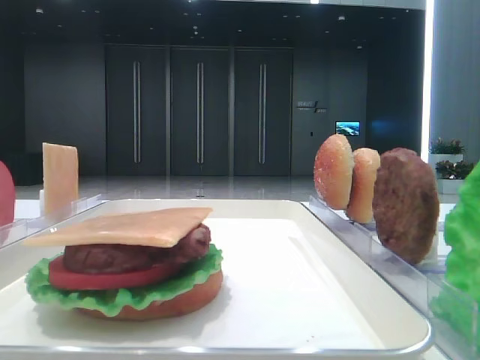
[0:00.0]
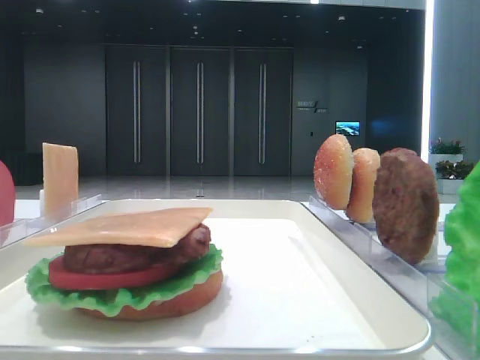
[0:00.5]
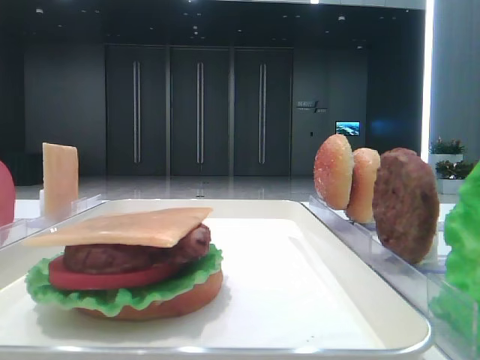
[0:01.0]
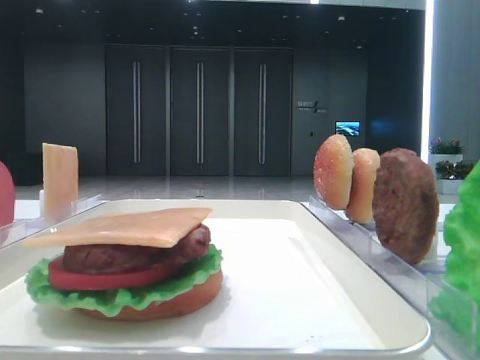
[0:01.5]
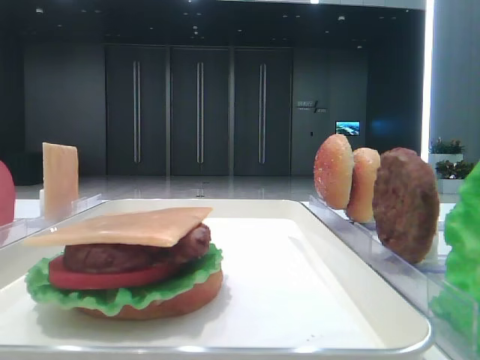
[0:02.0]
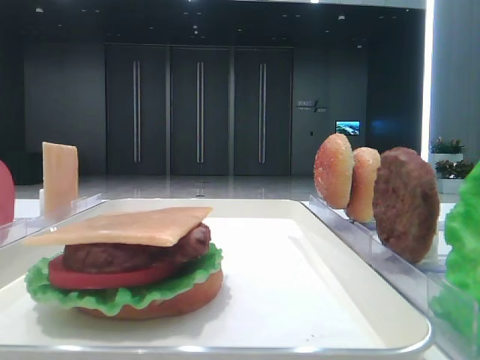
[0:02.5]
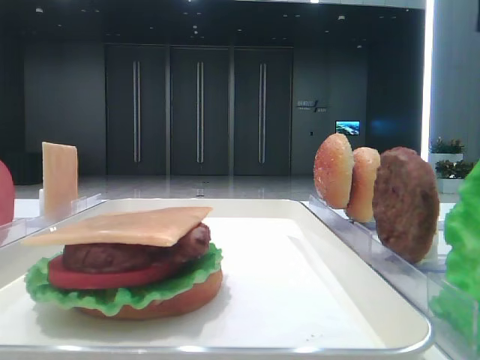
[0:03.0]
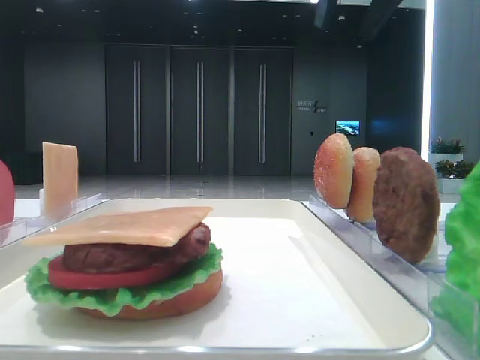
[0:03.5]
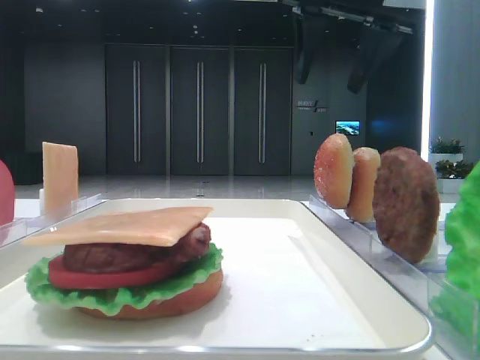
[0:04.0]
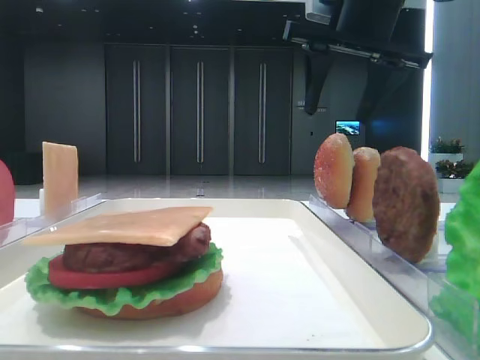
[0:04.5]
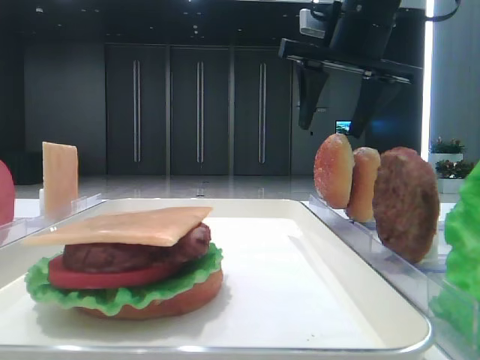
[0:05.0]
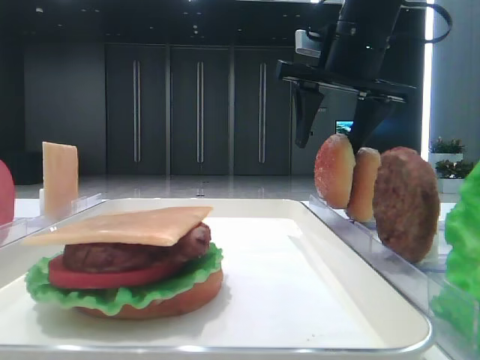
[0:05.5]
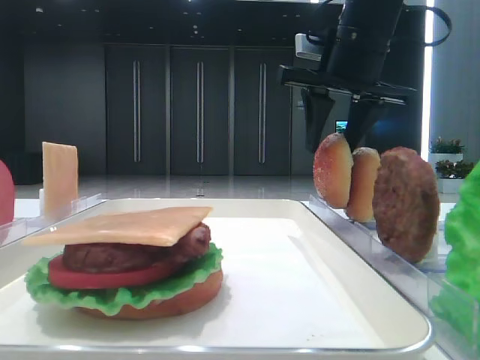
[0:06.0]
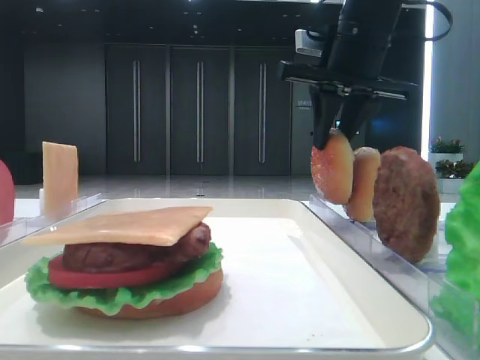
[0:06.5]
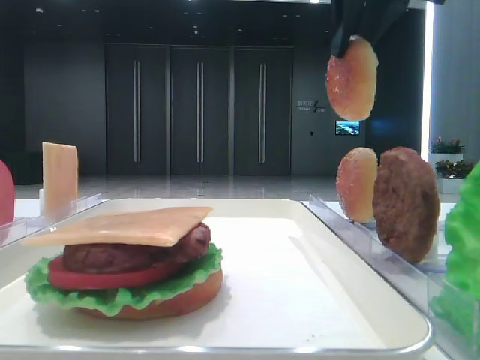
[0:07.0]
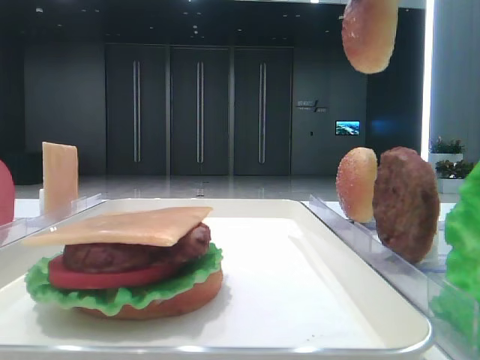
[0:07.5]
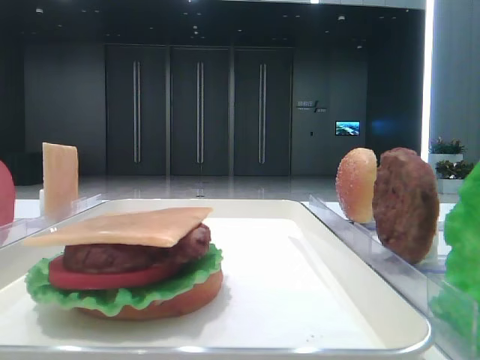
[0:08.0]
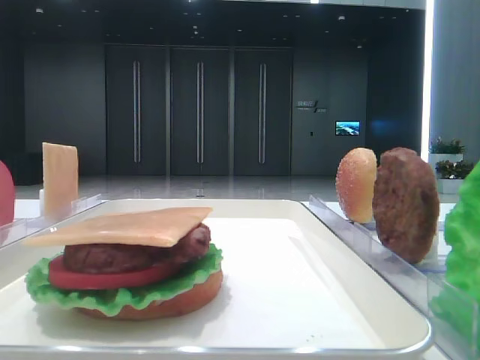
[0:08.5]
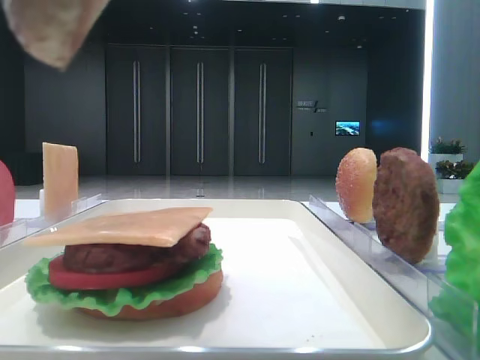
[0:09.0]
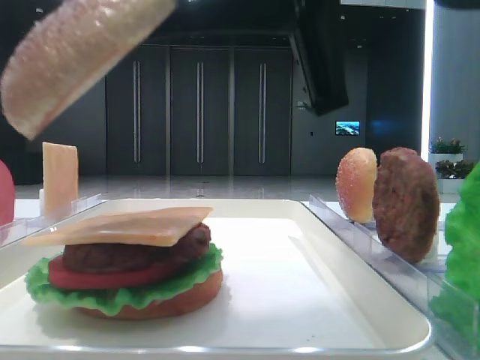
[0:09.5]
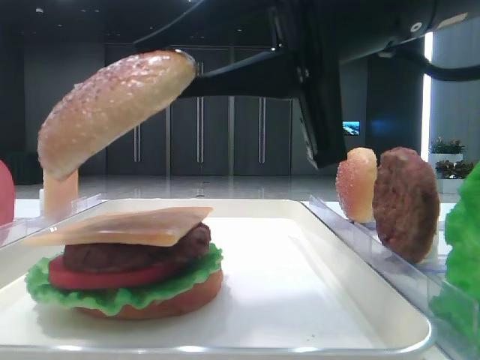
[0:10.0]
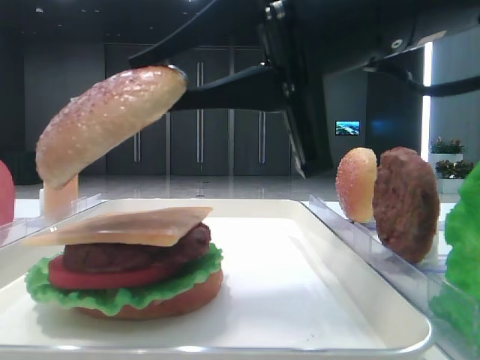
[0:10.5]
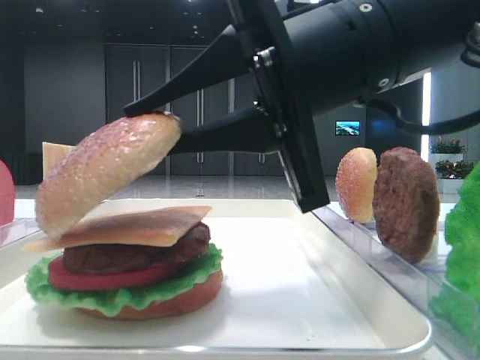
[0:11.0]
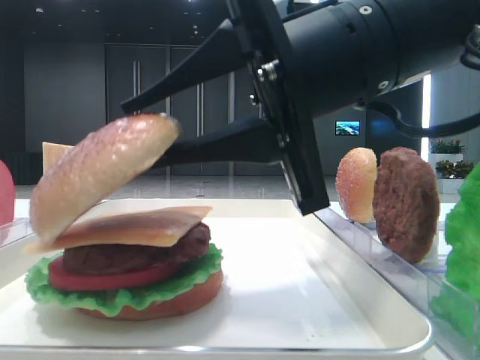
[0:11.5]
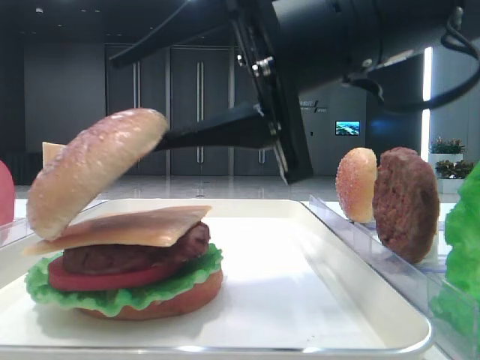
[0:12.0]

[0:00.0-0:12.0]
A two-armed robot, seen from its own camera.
Step, 0:00.0 to 0:06.0: Pick up the top bread slice with the right hand.
0:02.0 to 0:04.0: The right gripper is displaced forward and to the left by some 30 cm, and opens its fingers.
0:04.0 to 0:06.0: The right gripper heads downward, covering some 5 cm, and closes.
0:06.0 to 0:08.0: The right gripper travels backward and upward by about 30 cm, and closes.
0:08.0 to 0:10.0: The right gripper heads downward, covering approximately 20 cm.
0:10.0 to 0:12.0: The right gripper opens its fingers.

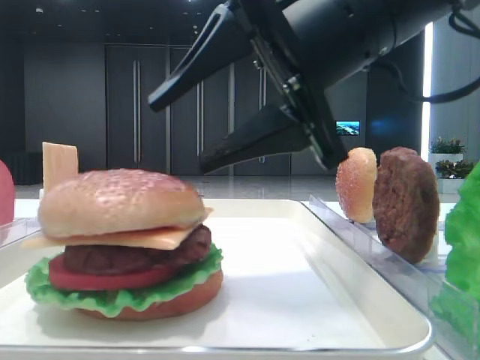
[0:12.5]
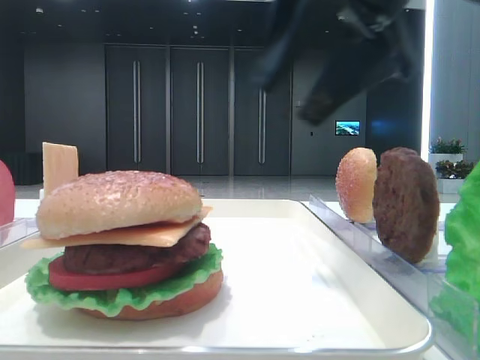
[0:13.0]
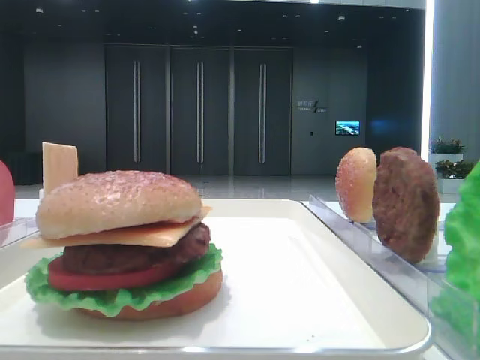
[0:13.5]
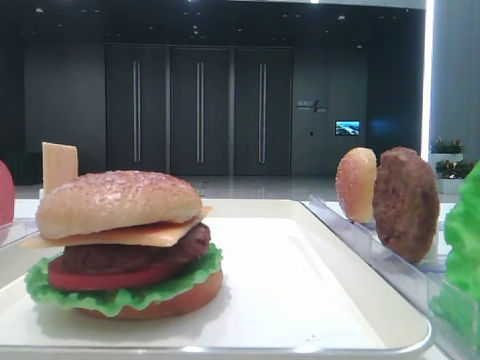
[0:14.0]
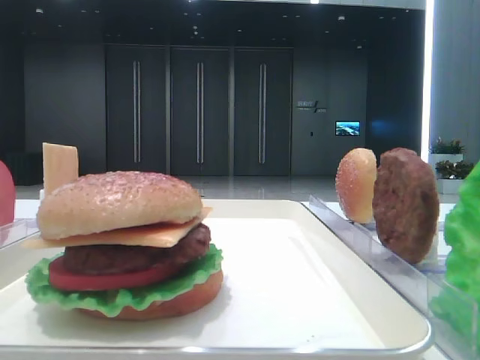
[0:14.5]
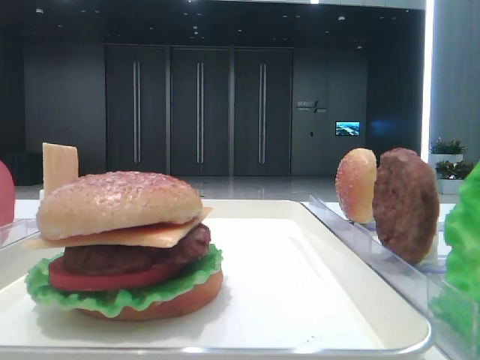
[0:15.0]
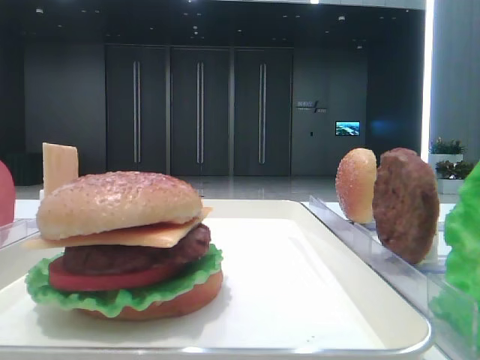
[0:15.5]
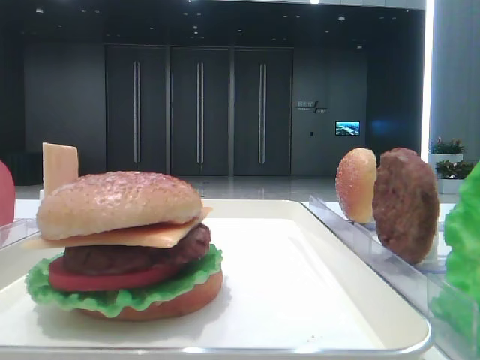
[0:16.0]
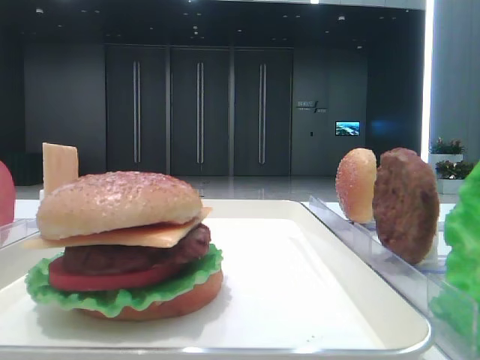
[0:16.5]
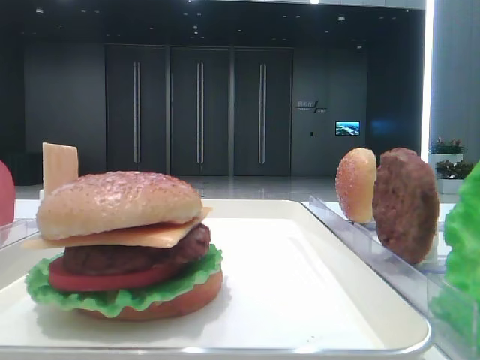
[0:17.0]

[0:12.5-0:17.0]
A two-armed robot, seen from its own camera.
0:12.5 to 0:14.5: The right gripper is displaced to the right, upward and backward by about 30 cm.

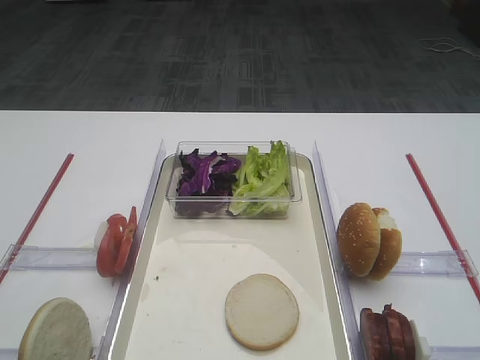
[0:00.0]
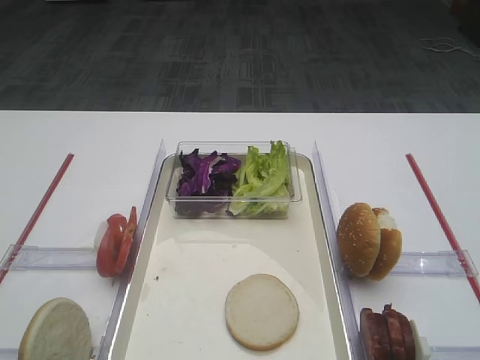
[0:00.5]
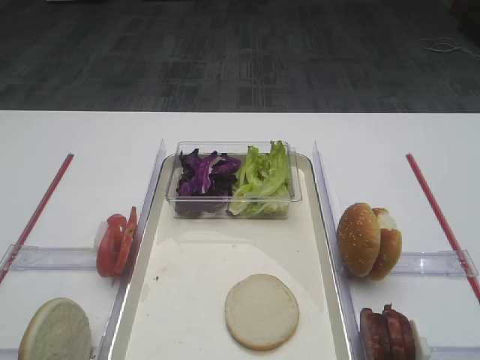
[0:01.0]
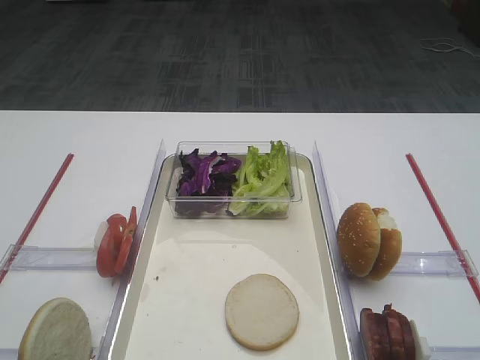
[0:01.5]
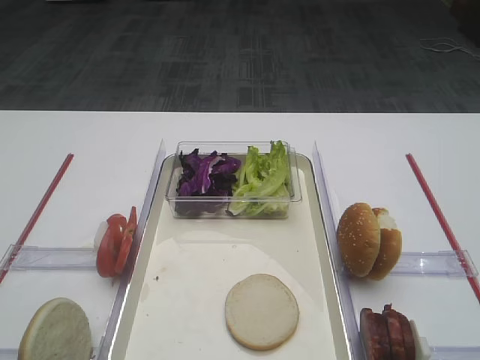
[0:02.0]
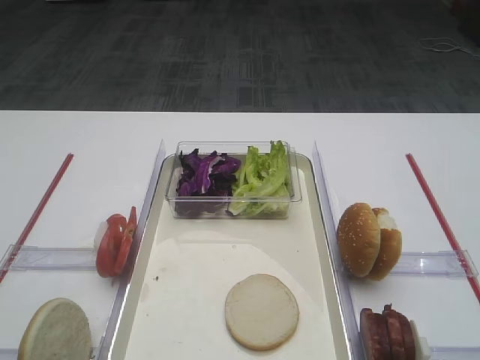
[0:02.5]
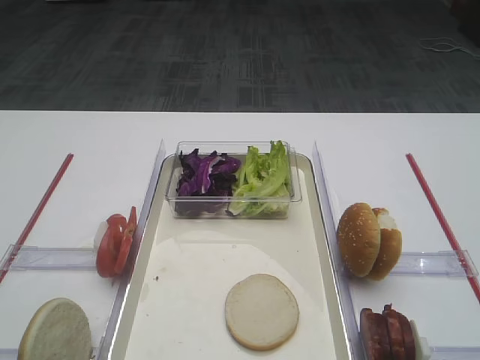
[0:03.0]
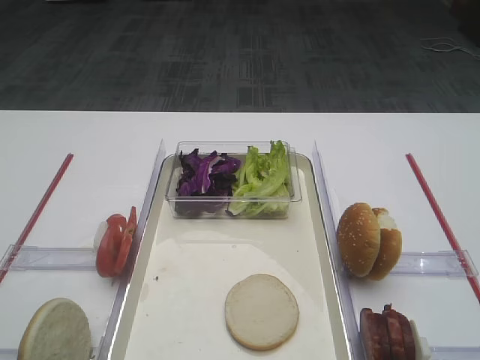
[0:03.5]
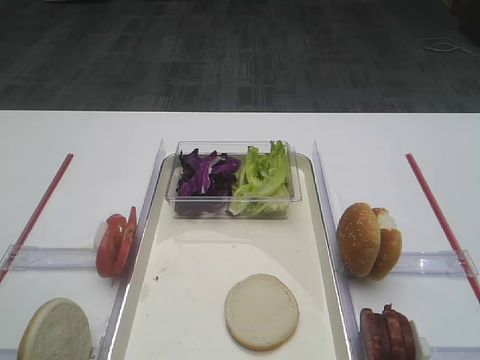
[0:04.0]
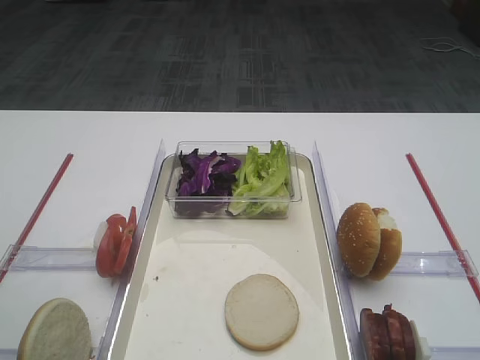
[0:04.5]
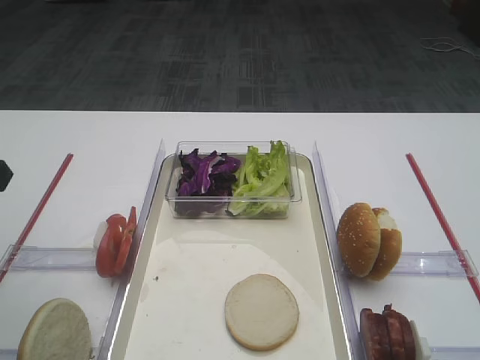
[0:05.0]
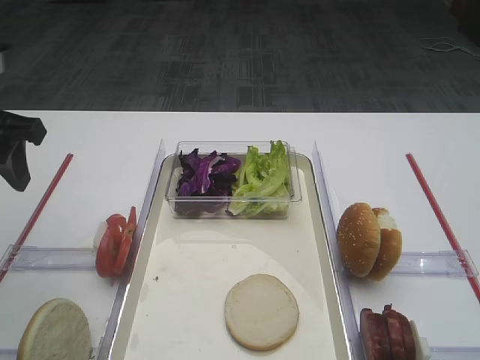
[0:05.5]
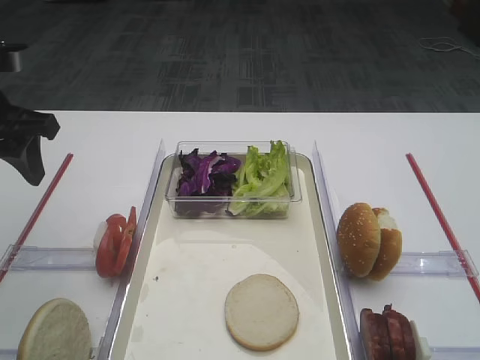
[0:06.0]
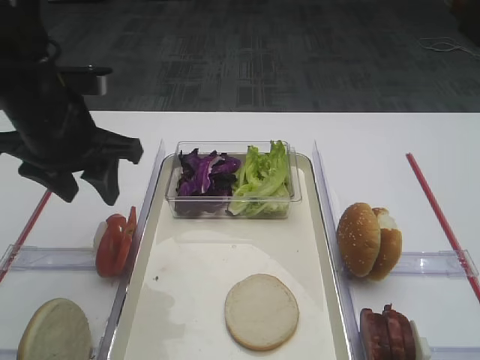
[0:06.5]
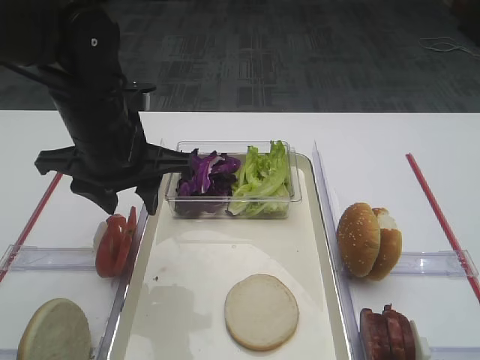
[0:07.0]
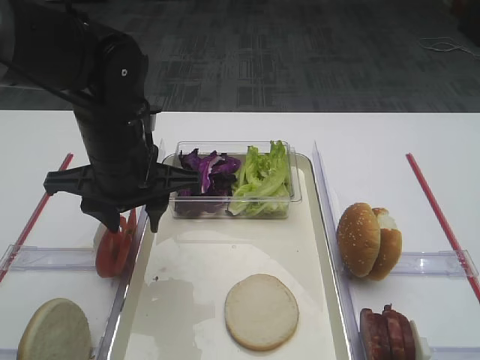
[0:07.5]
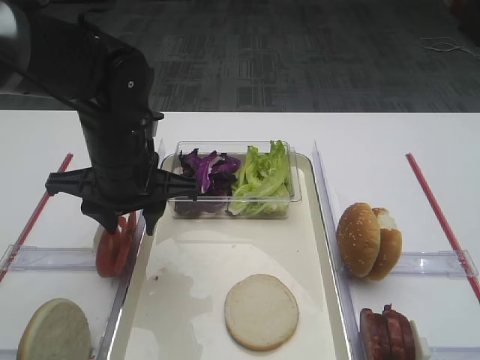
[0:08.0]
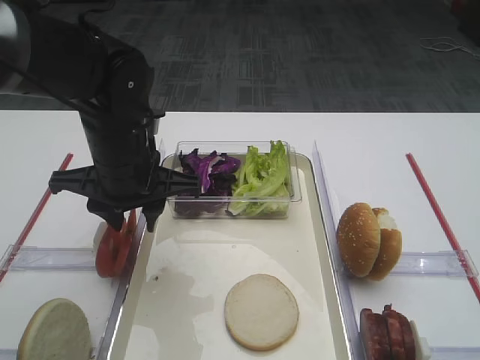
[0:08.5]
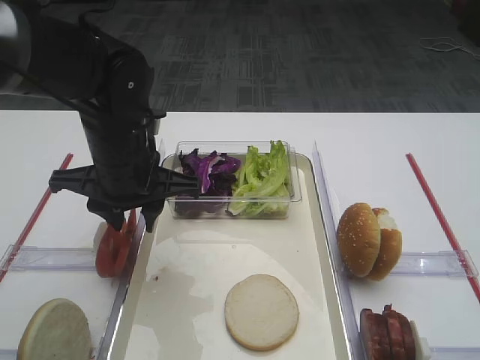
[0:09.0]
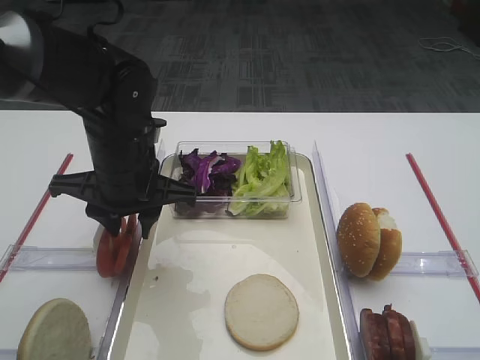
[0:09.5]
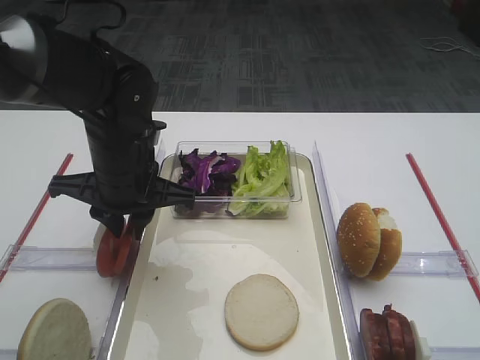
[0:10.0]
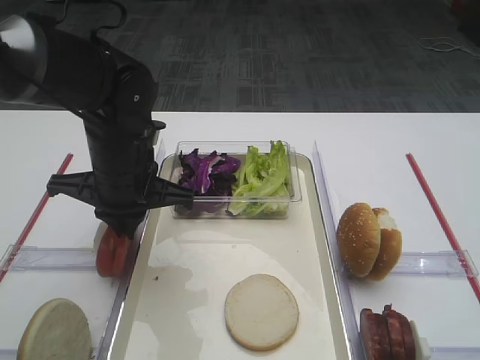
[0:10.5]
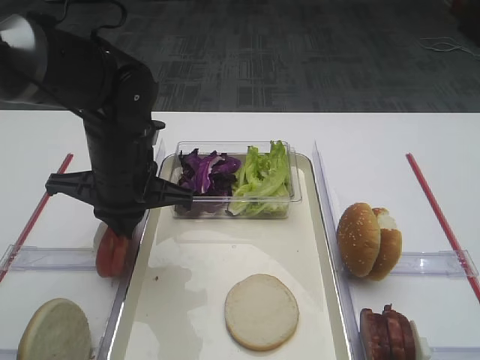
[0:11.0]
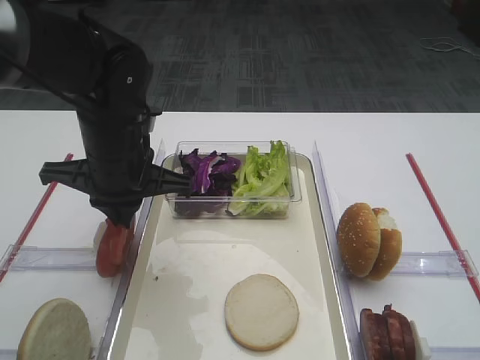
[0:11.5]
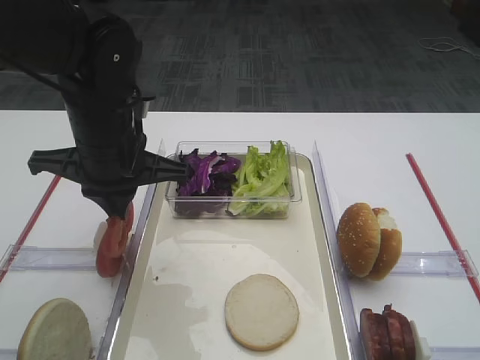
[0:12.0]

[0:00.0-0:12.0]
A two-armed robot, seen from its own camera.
Step, 0:00.0 to 0:11.5: Pick up the tomato slice with the left gripper.
0:04.0 to 0:06.0: The left gripper goes some 20 cm forward.
0:06.0 to 0:08.0: The left gripper moves to the right and downward, some 15 cm.
0:08.0 to 0:10.0: The left gripper closes.
0:10.0 to 0:12.0: The left gripper closes.
